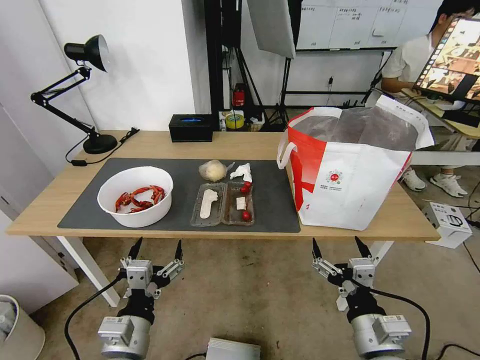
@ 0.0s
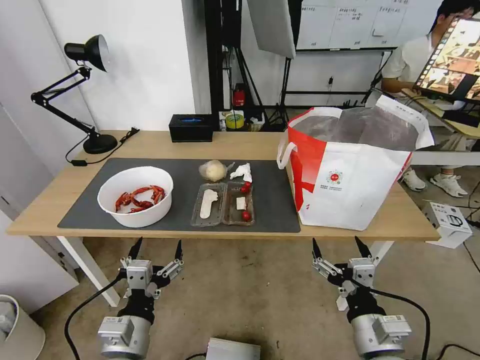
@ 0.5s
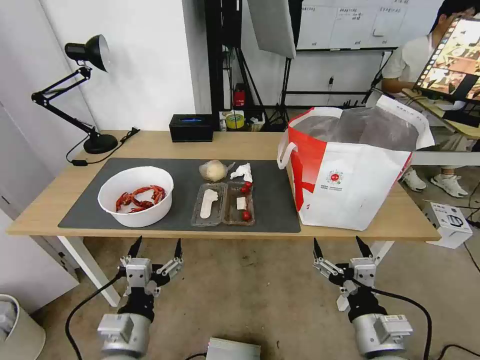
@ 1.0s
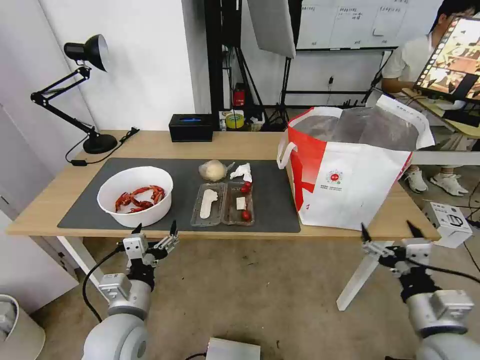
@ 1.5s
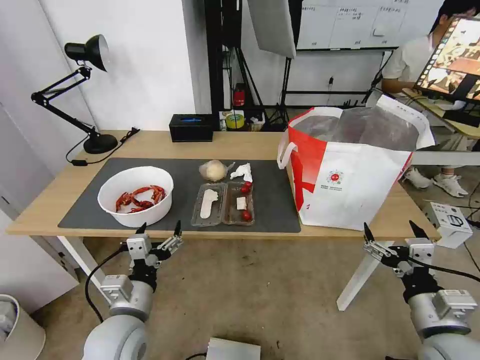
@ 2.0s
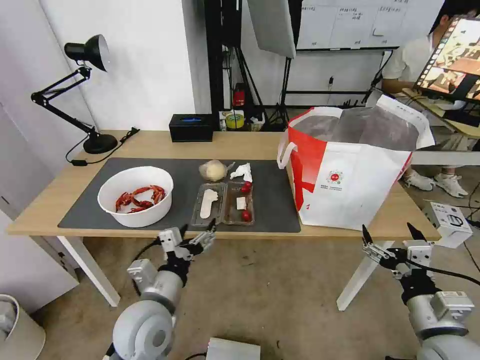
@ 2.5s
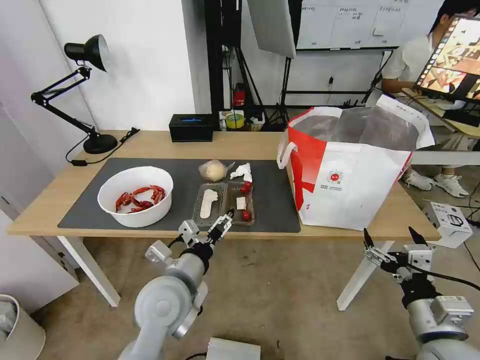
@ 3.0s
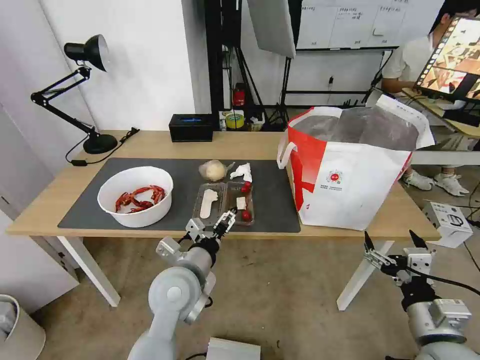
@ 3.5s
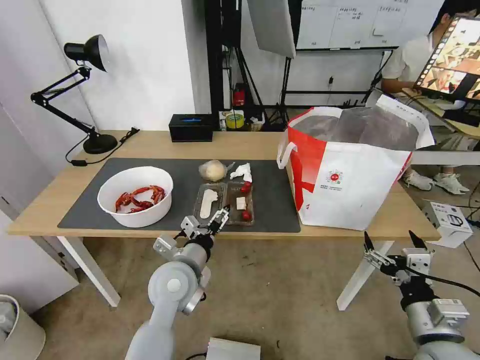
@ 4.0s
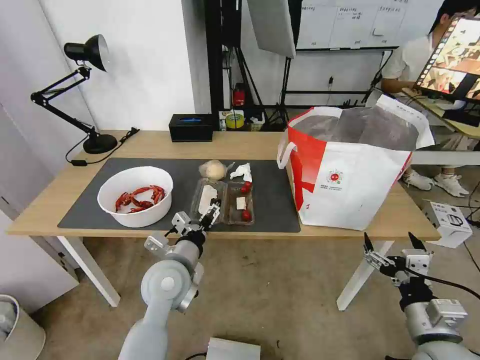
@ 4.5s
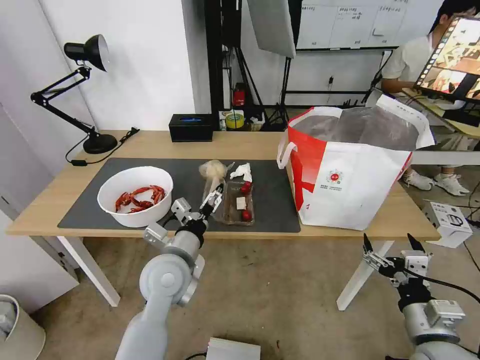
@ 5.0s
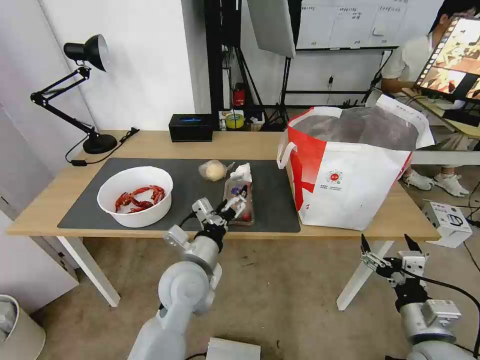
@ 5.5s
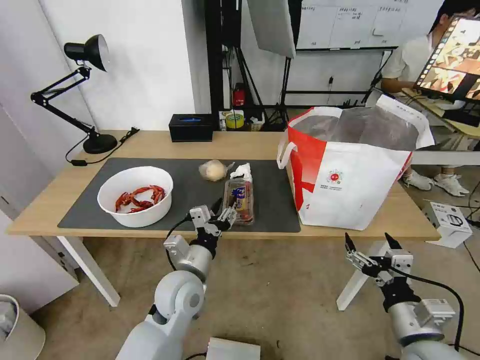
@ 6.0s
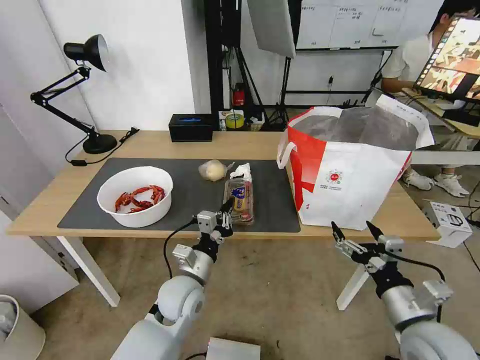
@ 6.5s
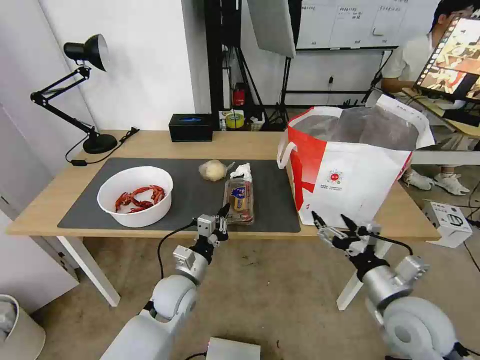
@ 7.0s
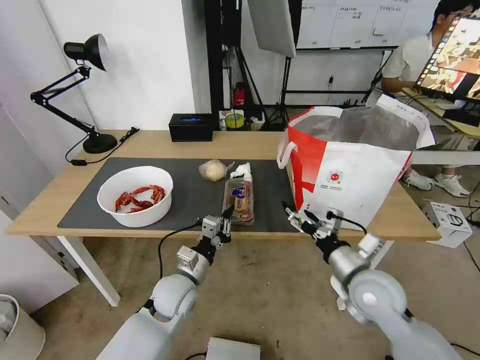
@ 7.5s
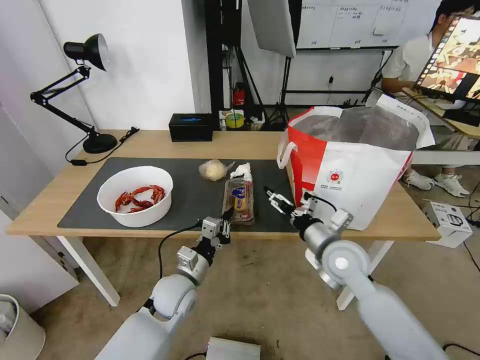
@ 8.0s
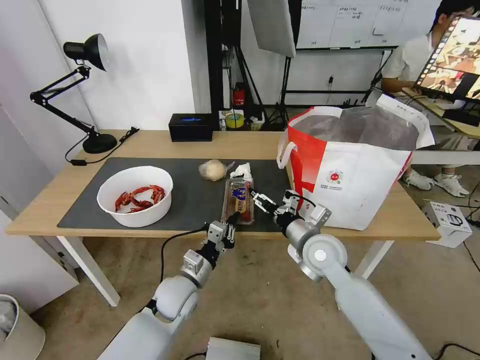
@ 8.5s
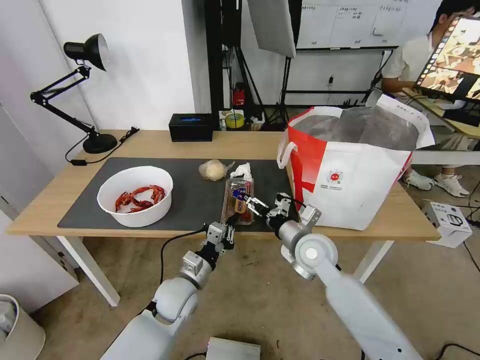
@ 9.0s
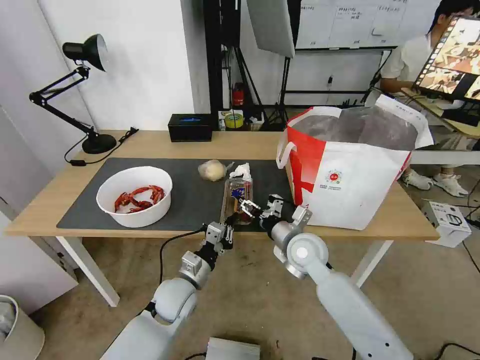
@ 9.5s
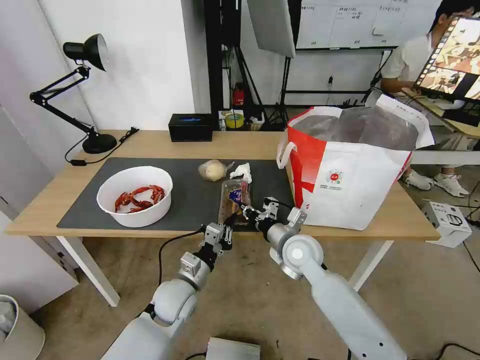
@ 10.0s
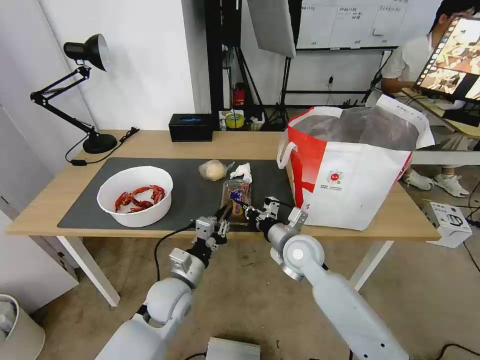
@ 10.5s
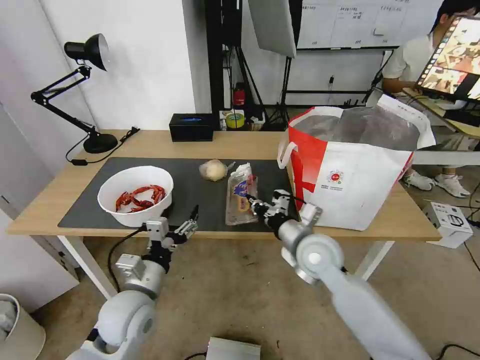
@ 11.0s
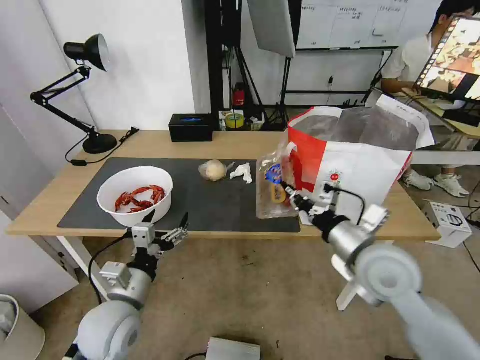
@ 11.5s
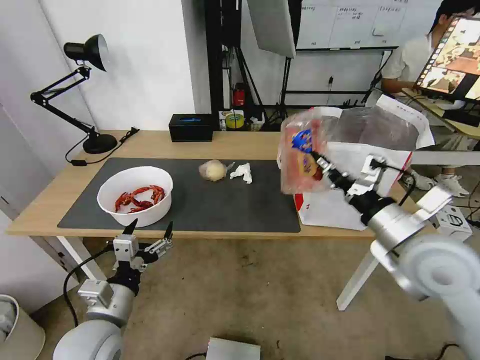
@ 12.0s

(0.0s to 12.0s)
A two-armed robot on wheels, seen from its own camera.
Task of the whole recording: Pick up the trash from the table and place it into the takeout bag.
2.0s - 4.0s: The left gripper heads forward and to the right, covering roughly 10 cm.
4.0s - 6.0s: The left gripper closes its fingers.
6.0s - 8.0s: The right gripper goes roughly 20 cm forward and to the left; the left gripper moves downward, some 5 cm, and closes its fingers.
8.0s - 10.0s: The right gripper moves to the left, approximately 5 cm, and closes.
10.0s - 12.0s: The right gripper heads upward, to the right and backward, covering roughly 25 cm. Meanwhile the left gripper is displaced backward, to the left and upward by roughly 20 cm, and opens.

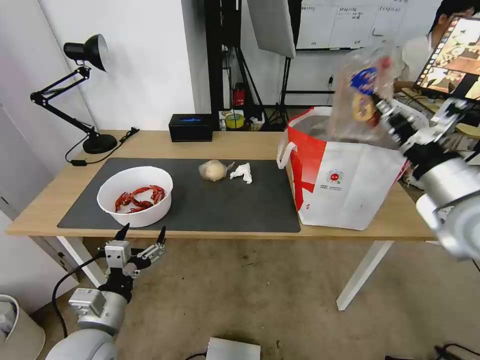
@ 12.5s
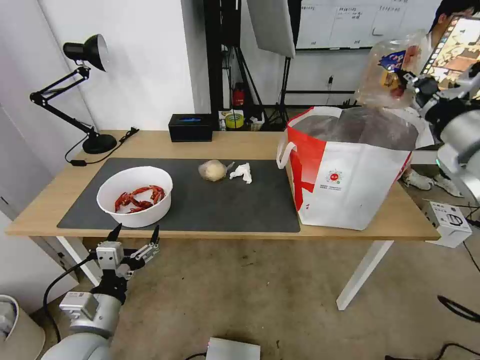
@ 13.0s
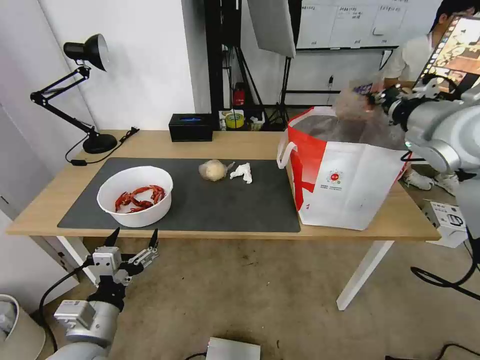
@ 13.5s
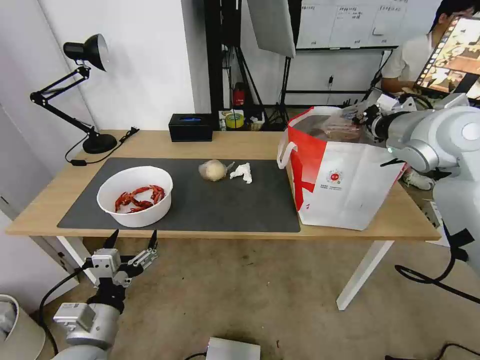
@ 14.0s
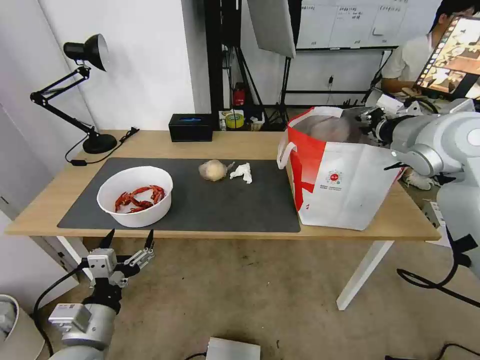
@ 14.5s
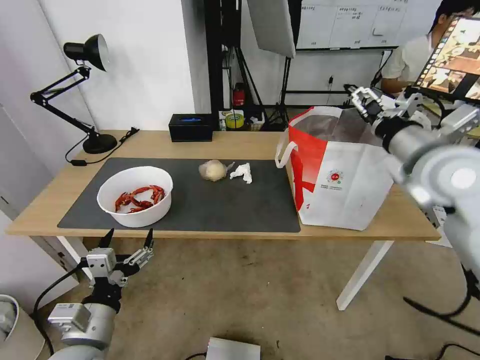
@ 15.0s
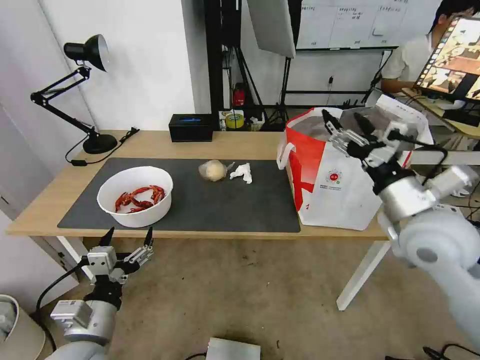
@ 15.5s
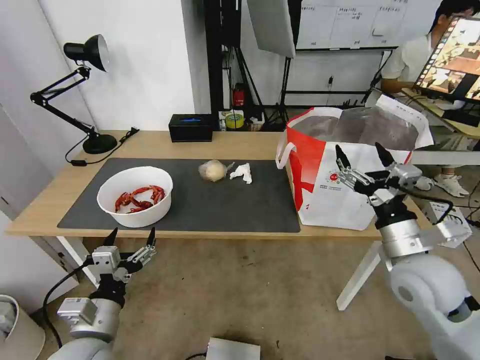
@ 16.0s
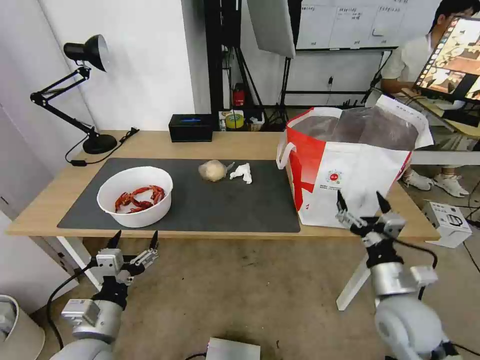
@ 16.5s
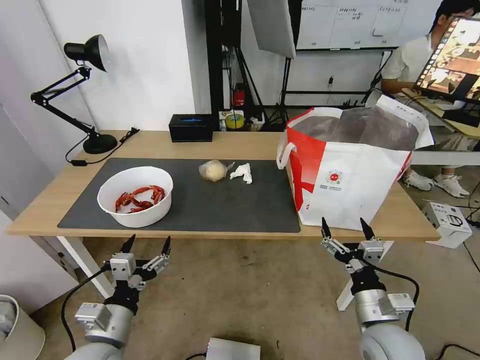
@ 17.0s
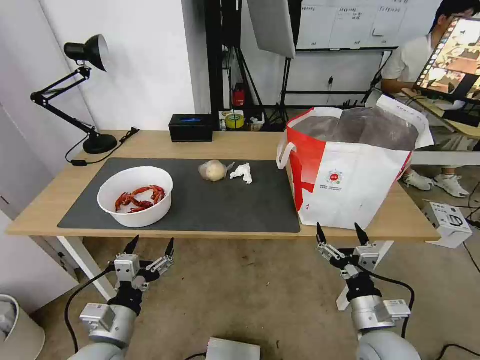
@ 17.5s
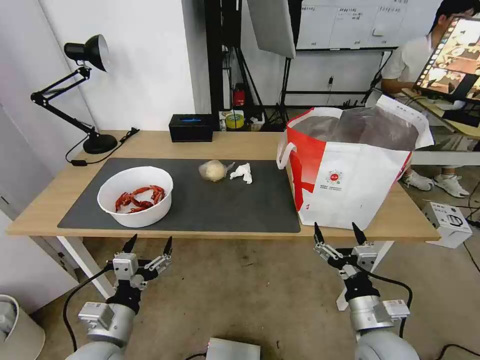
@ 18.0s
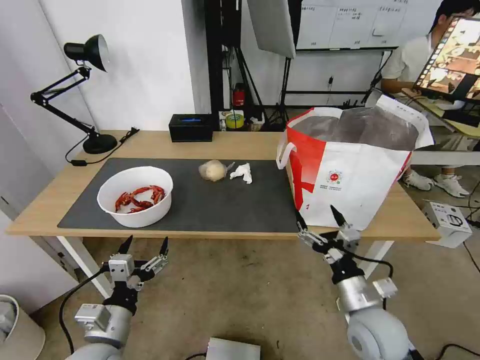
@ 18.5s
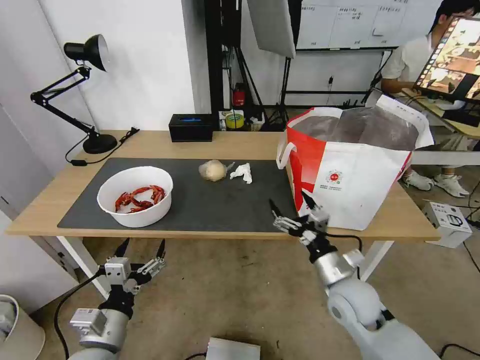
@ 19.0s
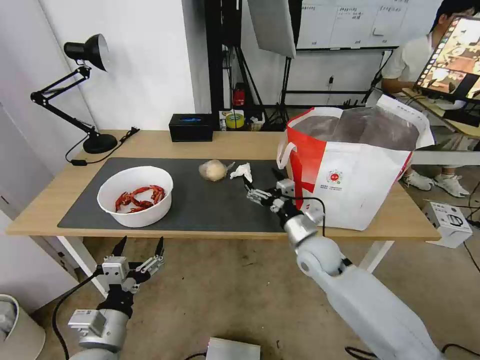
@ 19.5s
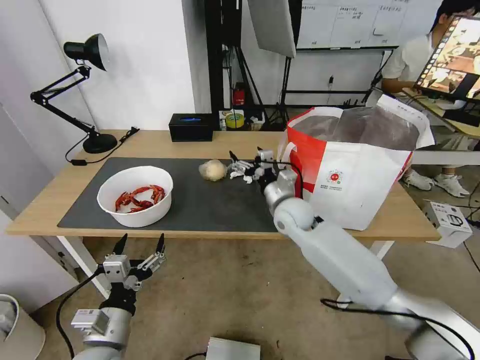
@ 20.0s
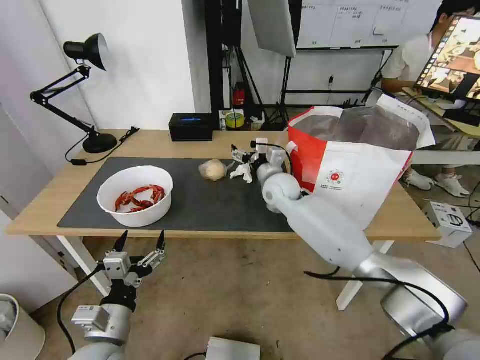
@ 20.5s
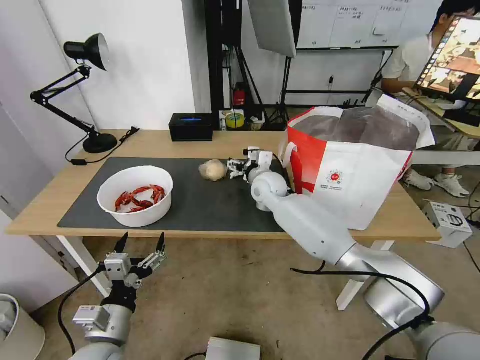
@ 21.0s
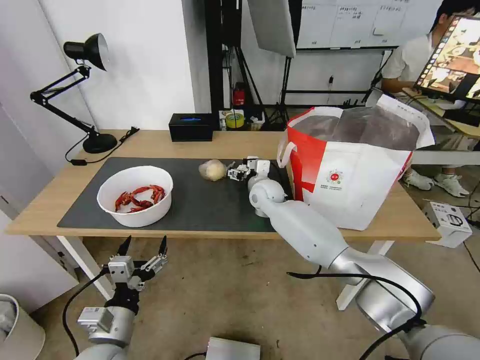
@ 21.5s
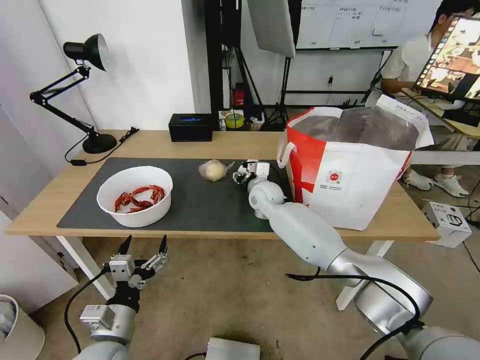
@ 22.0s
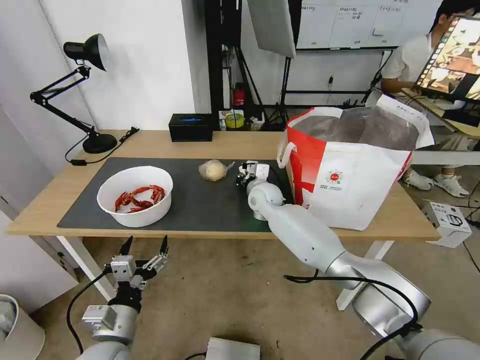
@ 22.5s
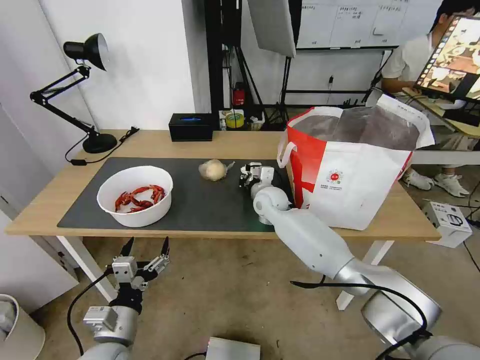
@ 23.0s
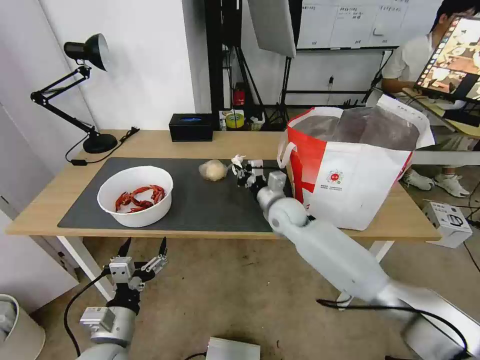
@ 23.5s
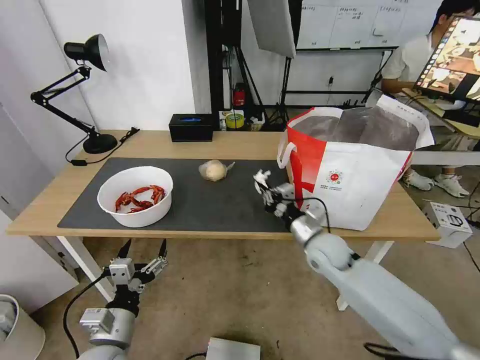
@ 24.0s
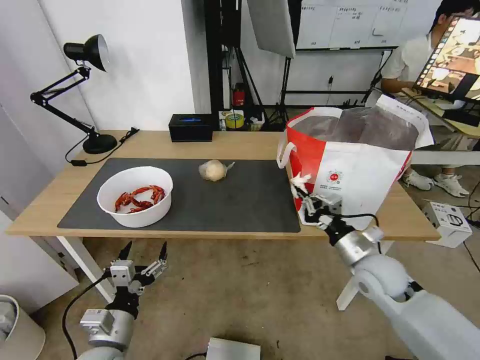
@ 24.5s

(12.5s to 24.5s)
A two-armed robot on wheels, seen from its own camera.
Task of the whole recording: Pick up the trash from the table and place it into the takeout bag.
12.5s - 14.5s: The right gripper moves forward and upward, approximately 15 cm.
14.5s - 16.5s: The right gripper is displaced downward and backward by some 35 cm, and opens up.
16.5s - 18.5s: The right gripper shifts by some 5 cm.
18.5s - 20.5s: The right gripper is displaced forward and to the left by about 35 cm.
20.5s - 22.5s: The right gripper shifts by approximately 5 cm, and closes its fingers.
22.5s - 24.5s: The right gripper is displaced backward and to the right by some 35 cm.

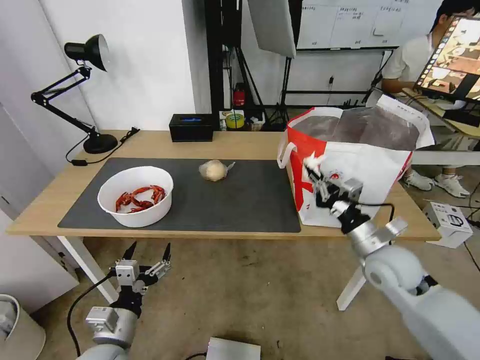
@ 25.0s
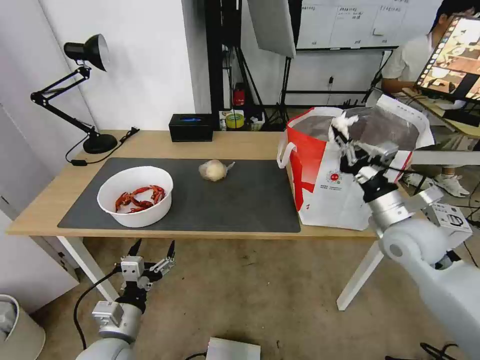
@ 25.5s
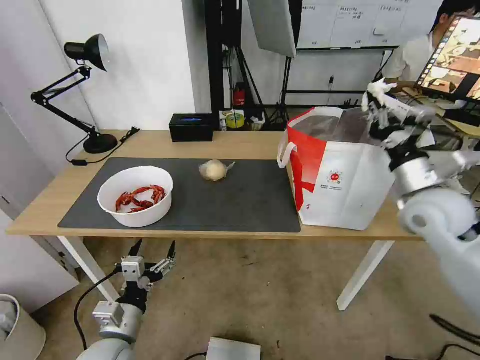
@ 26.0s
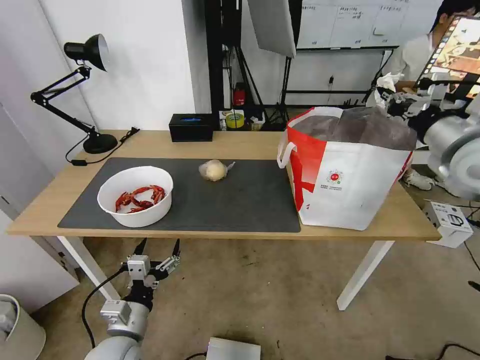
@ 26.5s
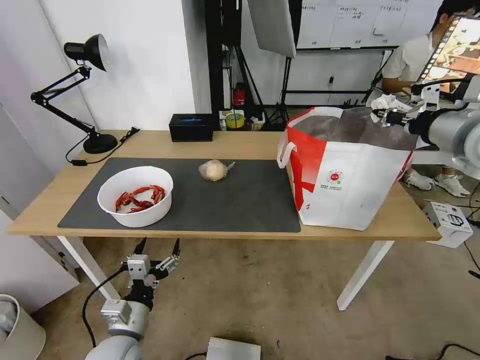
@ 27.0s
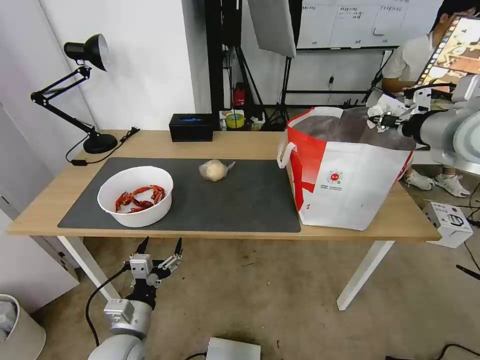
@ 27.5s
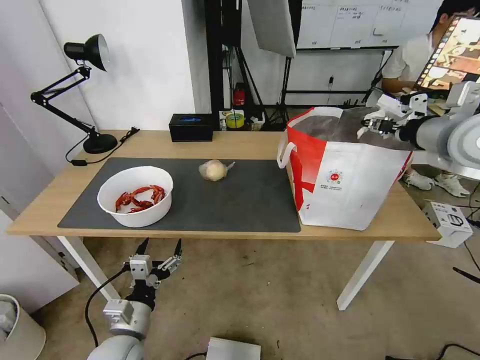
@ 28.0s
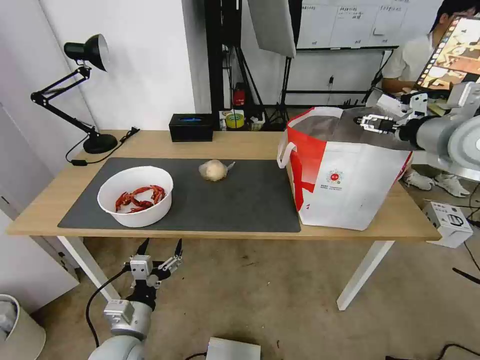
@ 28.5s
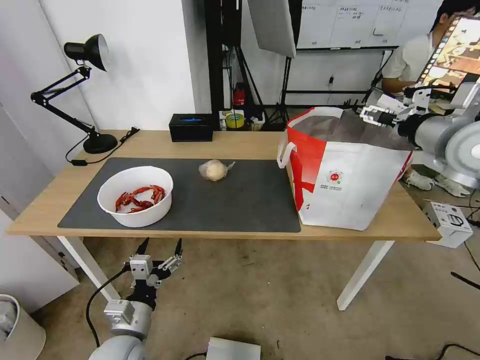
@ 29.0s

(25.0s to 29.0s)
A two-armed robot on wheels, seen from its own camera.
Task of the whole recording: Pick up the trash from the table and place it into the takeout bag.
25.0s - 27.0s: The right gripper is displaced upward by about 25 cm.
27.0s - 29.0s: The right gripper opens up.
